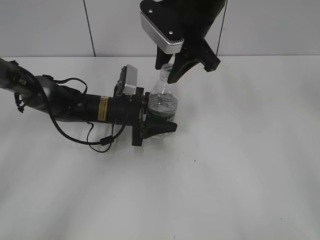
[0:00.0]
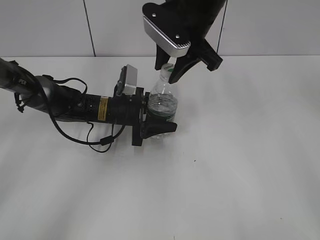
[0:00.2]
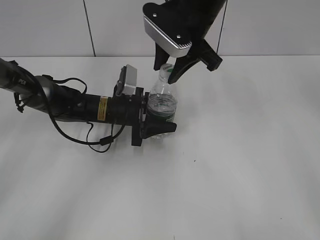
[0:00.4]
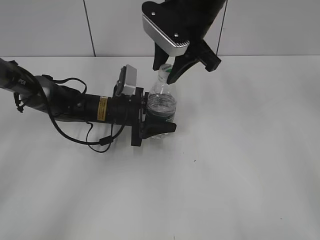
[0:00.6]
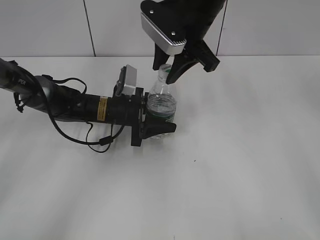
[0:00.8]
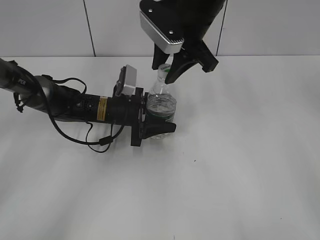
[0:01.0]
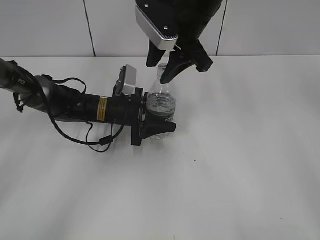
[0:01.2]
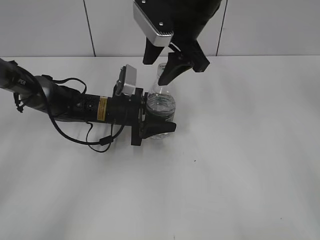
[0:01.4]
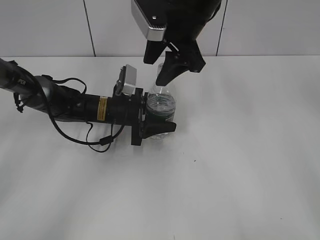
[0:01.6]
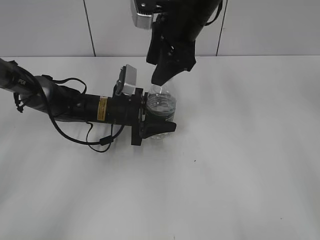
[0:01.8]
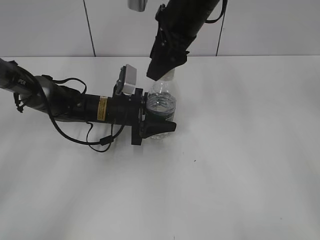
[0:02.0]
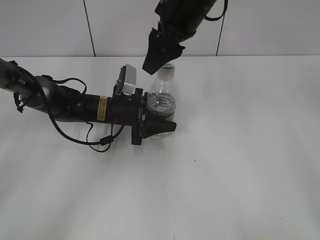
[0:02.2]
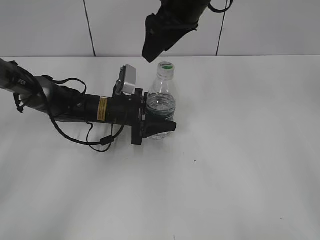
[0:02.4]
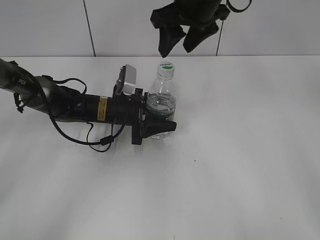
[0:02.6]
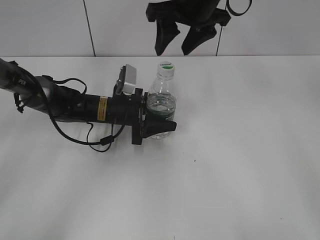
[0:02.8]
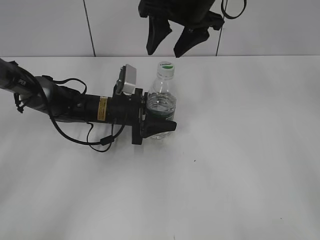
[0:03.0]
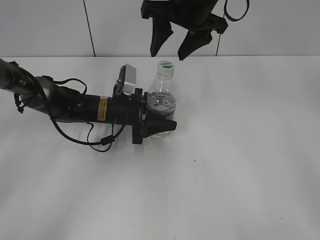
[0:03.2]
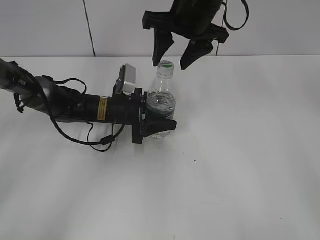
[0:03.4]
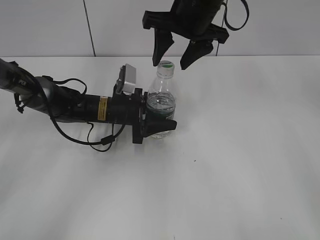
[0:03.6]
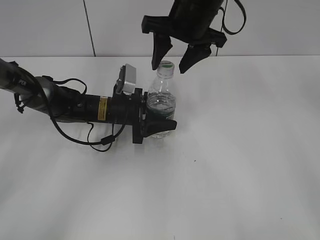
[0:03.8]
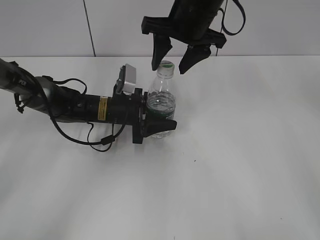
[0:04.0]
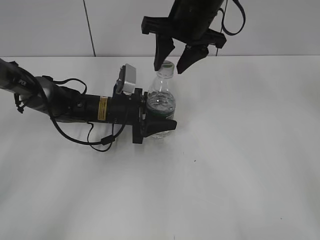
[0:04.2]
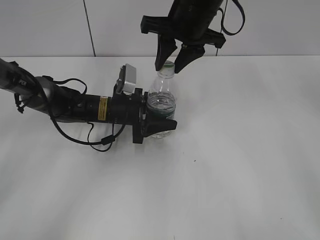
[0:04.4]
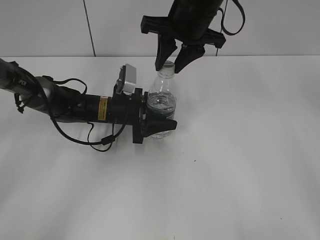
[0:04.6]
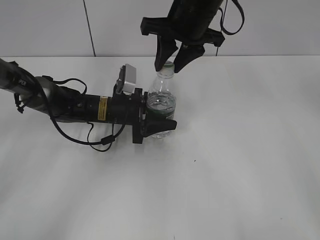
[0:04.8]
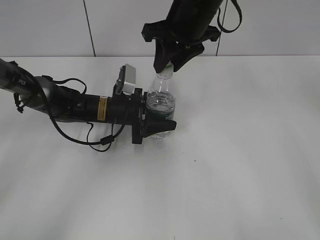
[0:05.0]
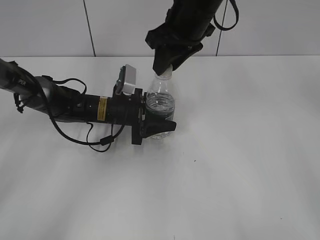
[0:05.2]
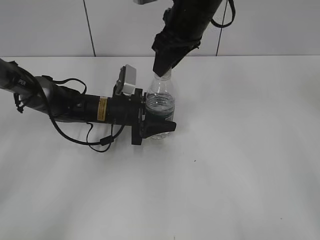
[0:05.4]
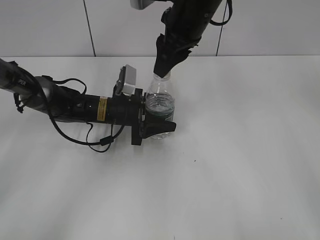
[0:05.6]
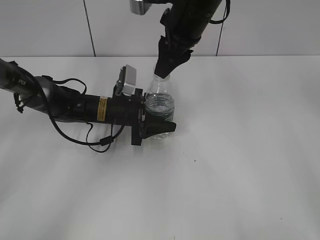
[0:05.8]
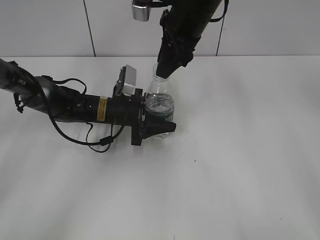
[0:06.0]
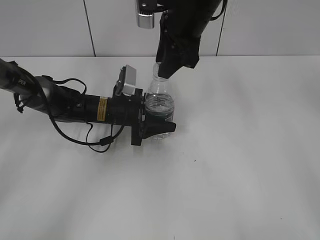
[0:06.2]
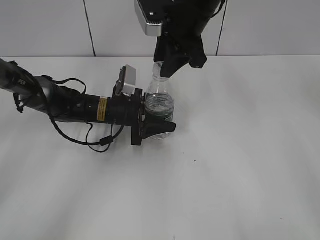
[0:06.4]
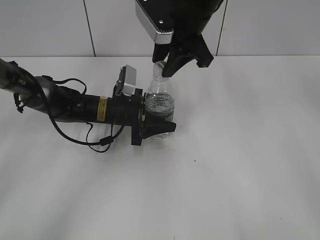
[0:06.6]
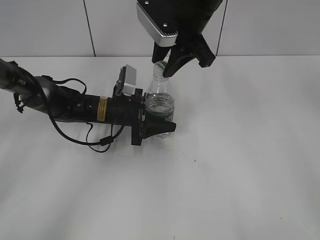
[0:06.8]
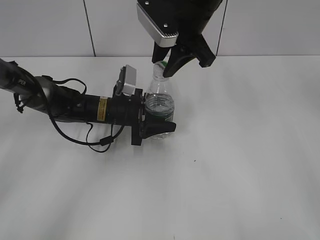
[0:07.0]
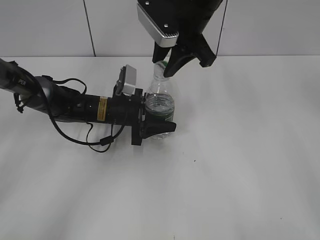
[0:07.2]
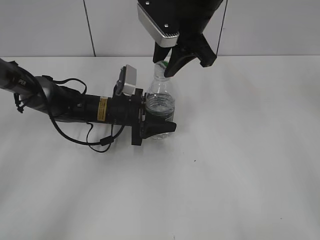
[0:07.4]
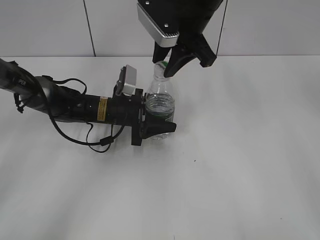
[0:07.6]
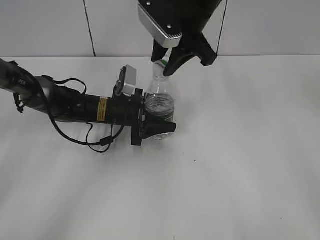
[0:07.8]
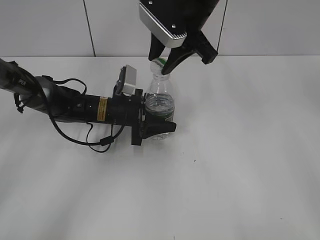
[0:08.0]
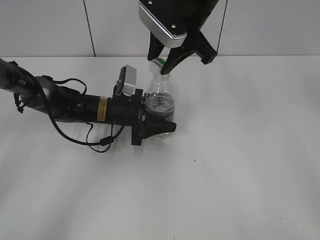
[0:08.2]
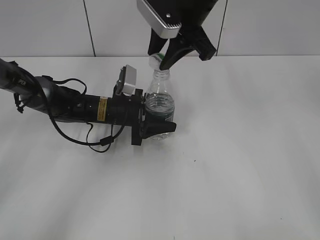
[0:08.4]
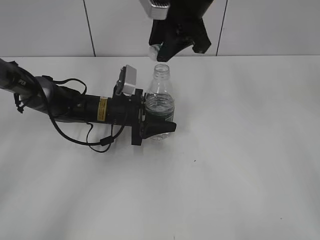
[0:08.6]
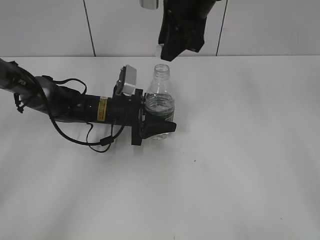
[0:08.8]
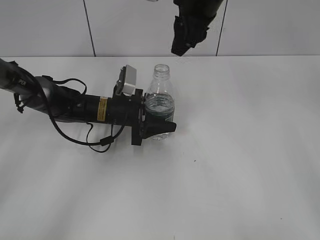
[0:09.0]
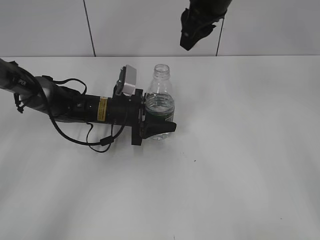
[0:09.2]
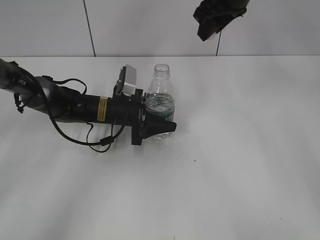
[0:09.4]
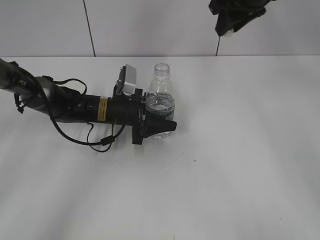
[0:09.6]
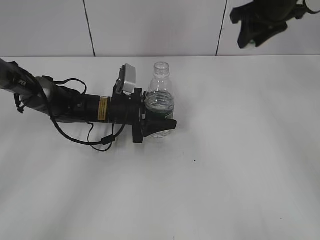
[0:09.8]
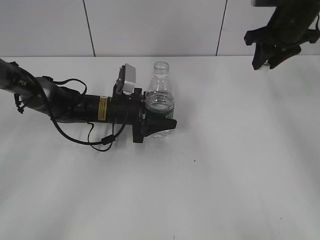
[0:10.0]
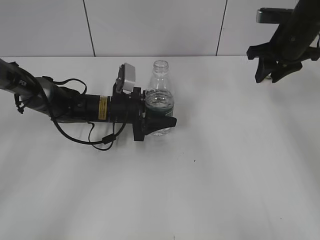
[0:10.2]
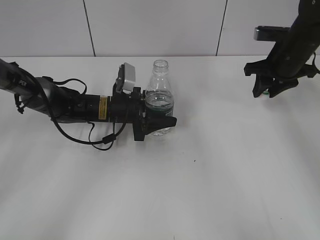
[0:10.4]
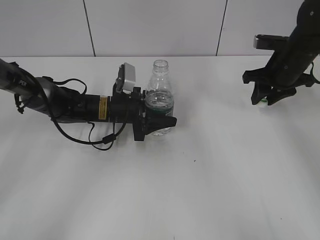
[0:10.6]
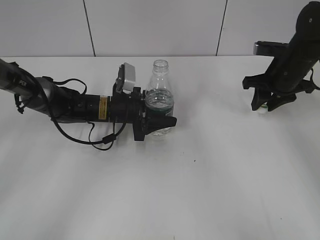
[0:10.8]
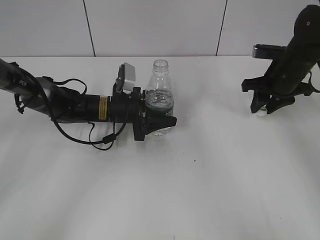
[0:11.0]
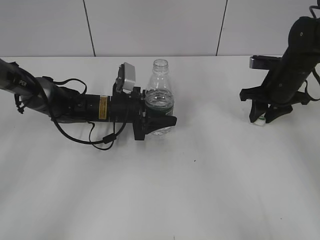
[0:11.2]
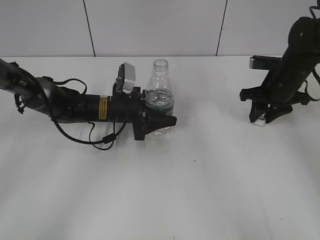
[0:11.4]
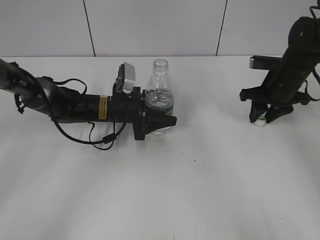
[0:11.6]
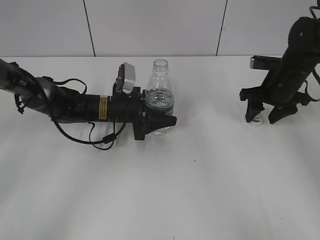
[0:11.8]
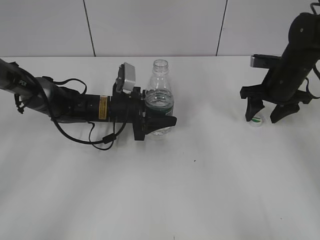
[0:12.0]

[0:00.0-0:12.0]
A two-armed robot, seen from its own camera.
Step, 0:00.0 to 0:08.8: Unscrew the bottle cap with the right gripper while holding the bottle with the left gripper.
0:00.0 to 0:01.6: The right gripper opens up.
0:03.0 to 0:04.4: The right gripper closes its fingers.
0:09.0 to 0:10.4: The right gripper heads to the right and downward, covering some 20 cm.
0:10.4 to 0:12.0: The right gripper changes place by some 5 cm, and opens its fingers.

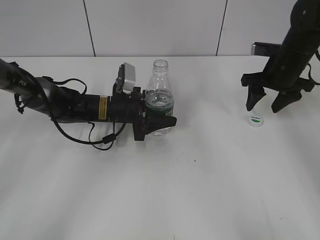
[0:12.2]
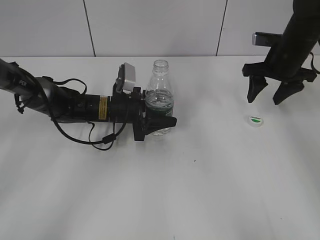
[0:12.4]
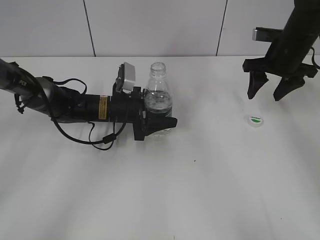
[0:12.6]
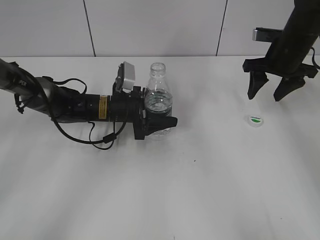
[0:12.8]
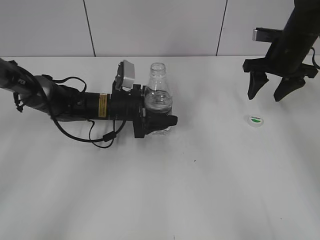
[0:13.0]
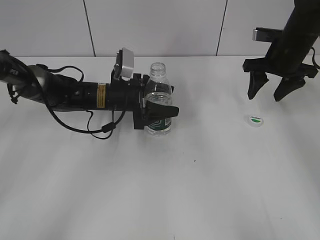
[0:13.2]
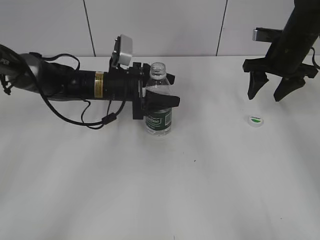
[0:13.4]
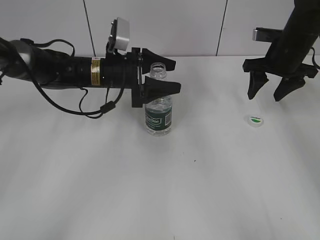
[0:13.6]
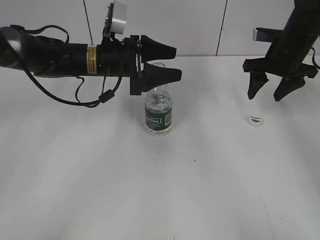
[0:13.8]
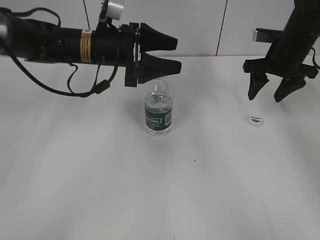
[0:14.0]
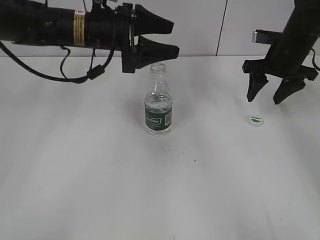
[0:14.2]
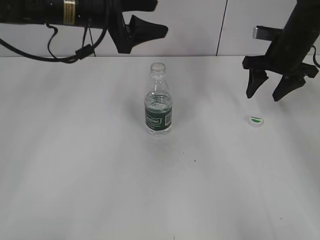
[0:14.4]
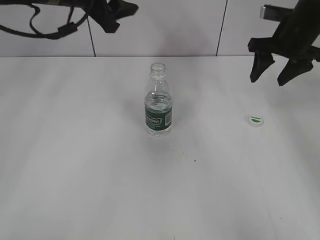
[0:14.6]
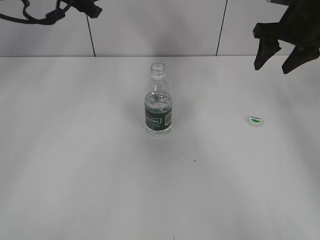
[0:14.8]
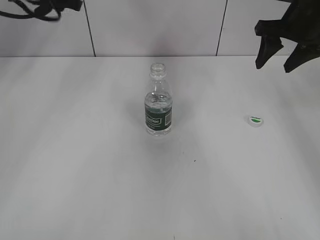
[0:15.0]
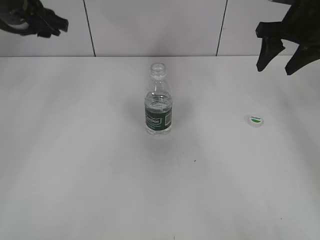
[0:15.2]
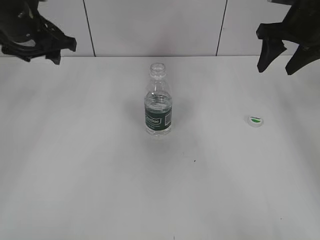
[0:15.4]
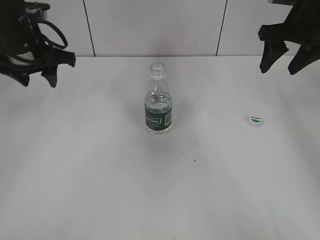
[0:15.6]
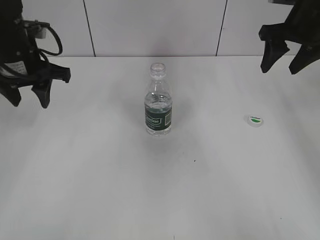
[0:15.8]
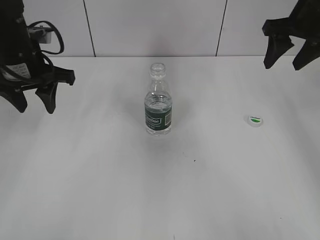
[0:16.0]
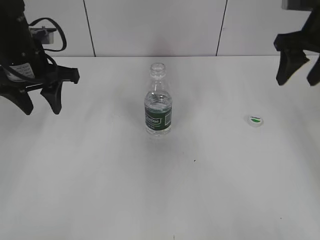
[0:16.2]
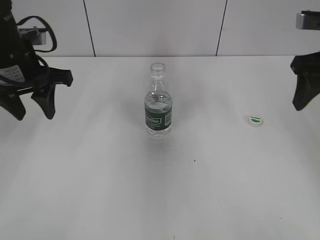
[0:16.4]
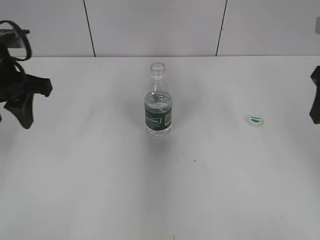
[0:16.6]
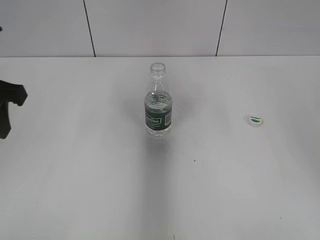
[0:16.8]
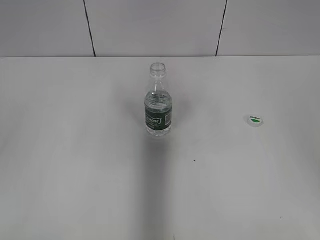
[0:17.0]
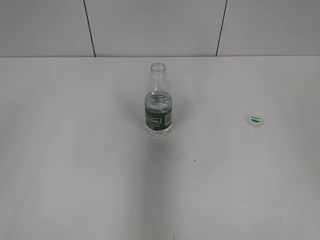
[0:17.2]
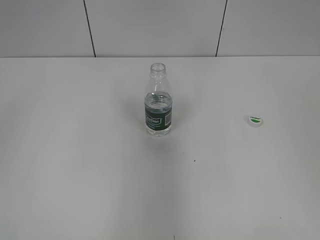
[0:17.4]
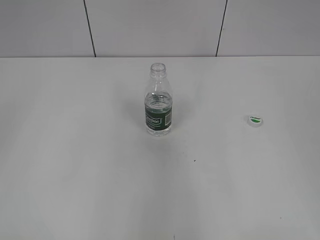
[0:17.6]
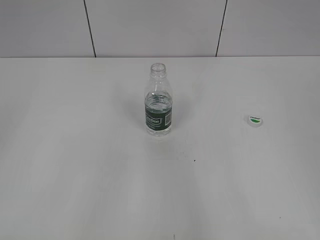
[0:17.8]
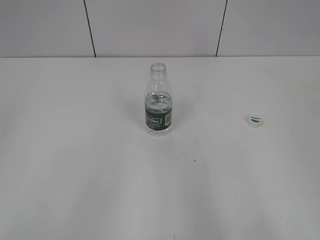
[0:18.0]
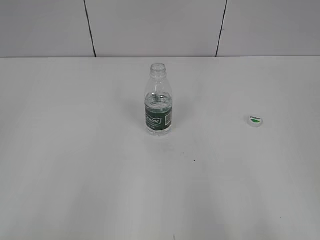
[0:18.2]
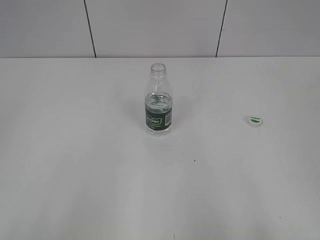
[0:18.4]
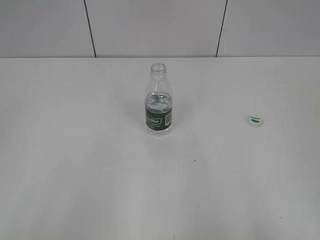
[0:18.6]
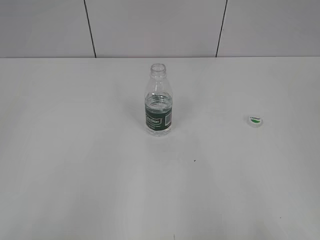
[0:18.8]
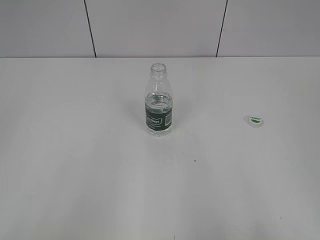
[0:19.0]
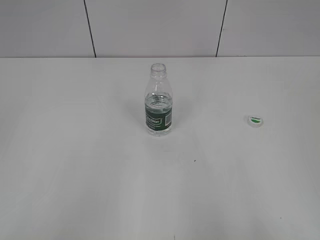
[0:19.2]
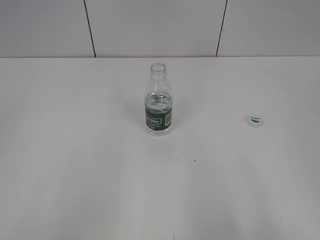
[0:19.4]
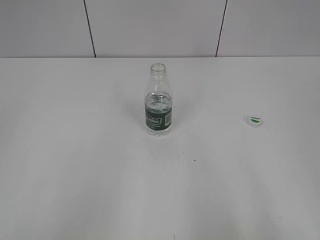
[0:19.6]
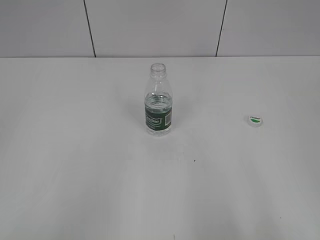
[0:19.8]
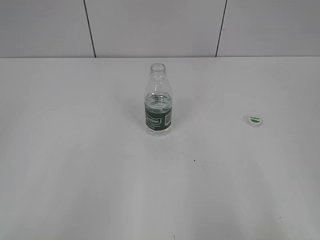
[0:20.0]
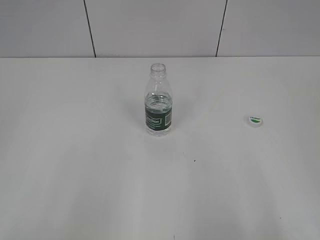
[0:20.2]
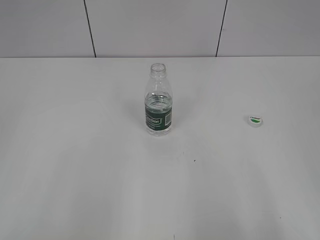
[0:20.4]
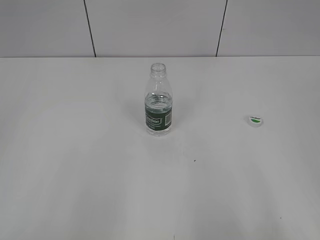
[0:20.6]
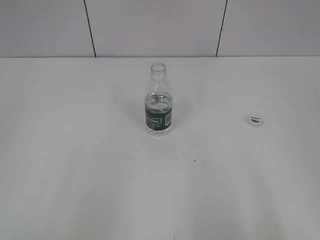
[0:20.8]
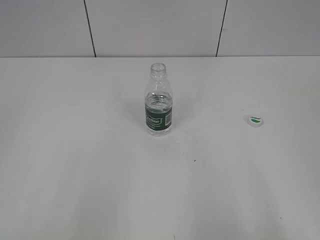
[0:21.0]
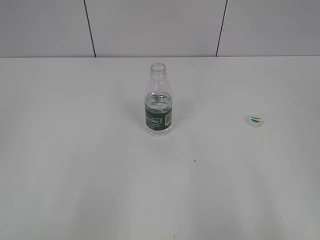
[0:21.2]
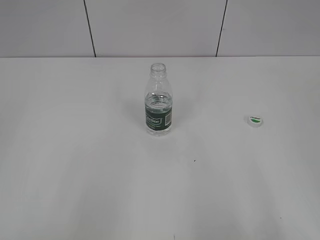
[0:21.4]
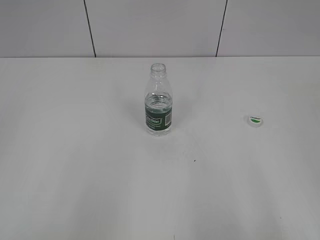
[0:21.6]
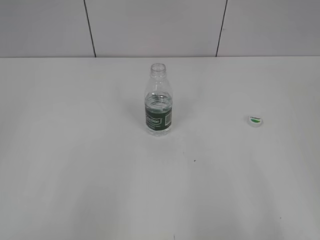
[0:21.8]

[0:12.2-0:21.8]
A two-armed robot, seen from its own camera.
Step, 0:12.2 to 0:13.8: Place the bottle on the table with the left gripper.
0:12.2 to 0:13.8: The left gripper shifts approximately 10 cm upward.
0:13.8 to 0:15.4: The left gripper goes some 15 cm to the left and upward. Meanwhile the right gripper moves upward, approximately 10 cm.
0:15.4 to 0:17.0: Both grippers move backward, approximately 20 cm.
0:17.0 to 0:18.6: The grippers both shift backward by roughly 25 cm.
0:20.2 to 0:21.8: Both grippers stay put.

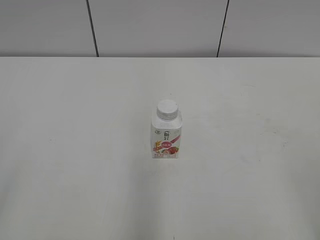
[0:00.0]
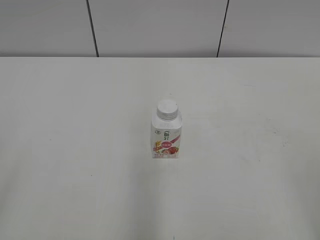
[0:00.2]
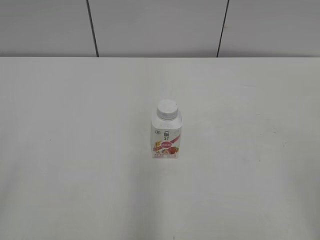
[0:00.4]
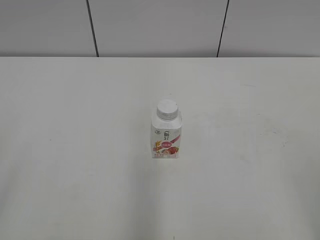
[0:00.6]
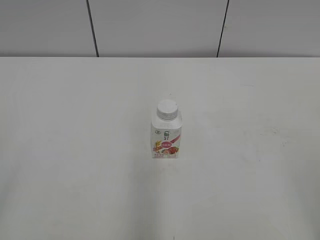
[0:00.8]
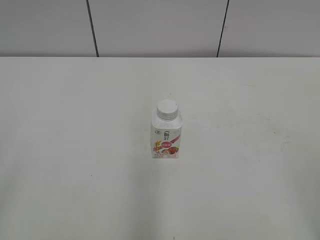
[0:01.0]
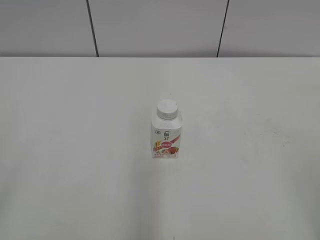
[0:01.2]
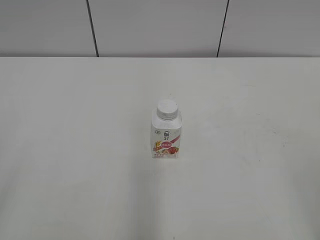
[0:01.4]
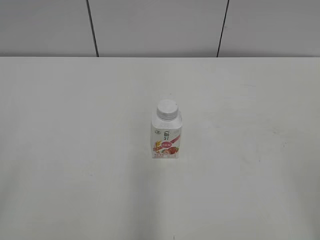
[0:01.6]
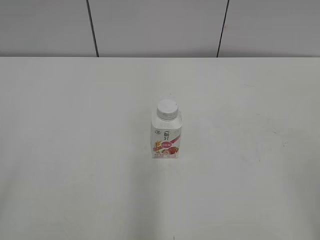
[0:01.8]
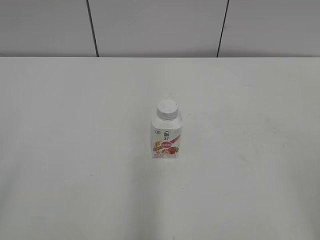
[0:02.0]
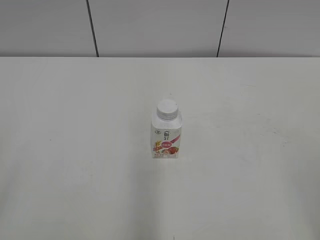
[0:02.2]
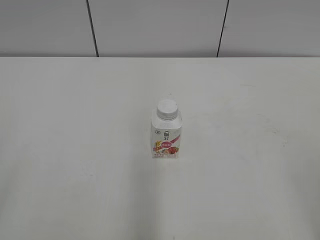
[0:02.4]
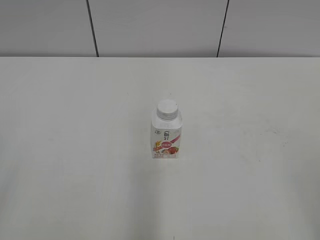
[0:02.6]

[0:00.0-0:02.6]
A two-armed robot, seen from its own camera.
0:01.2 to 0:02.6: Both grippers stay about where they are.
